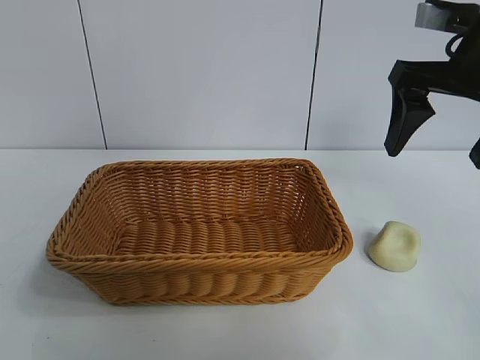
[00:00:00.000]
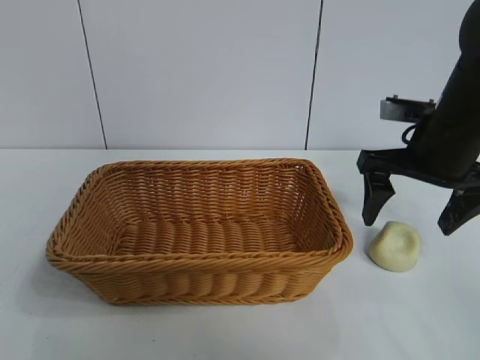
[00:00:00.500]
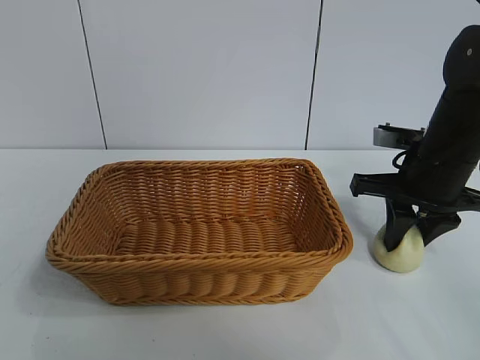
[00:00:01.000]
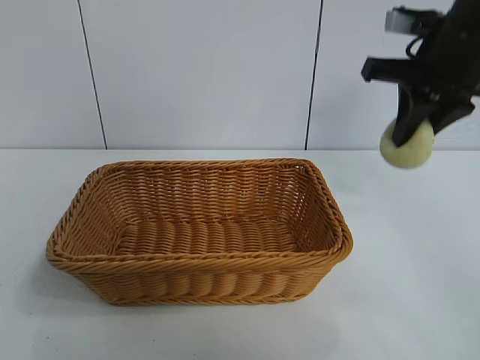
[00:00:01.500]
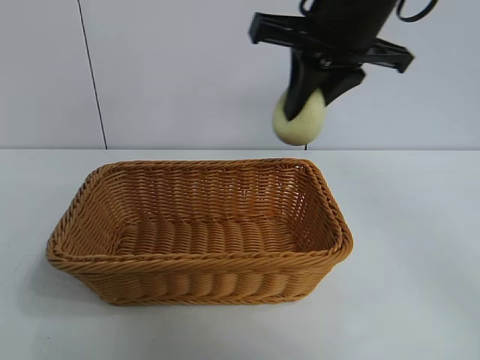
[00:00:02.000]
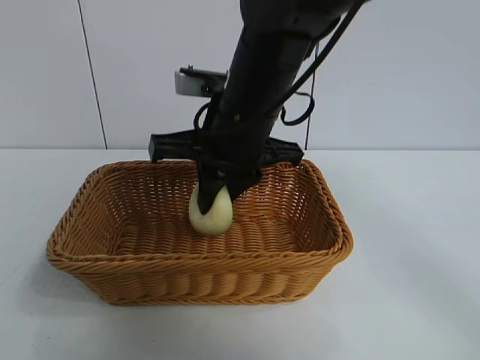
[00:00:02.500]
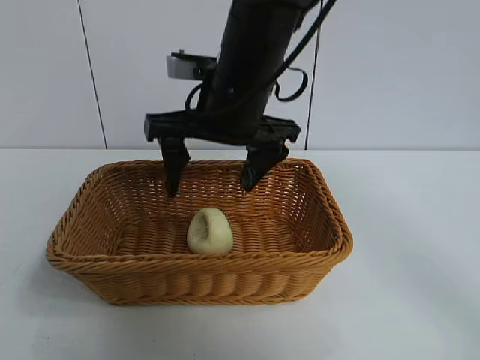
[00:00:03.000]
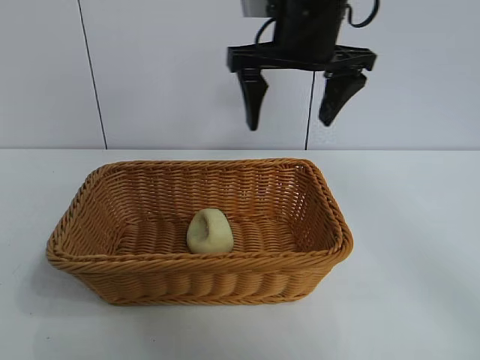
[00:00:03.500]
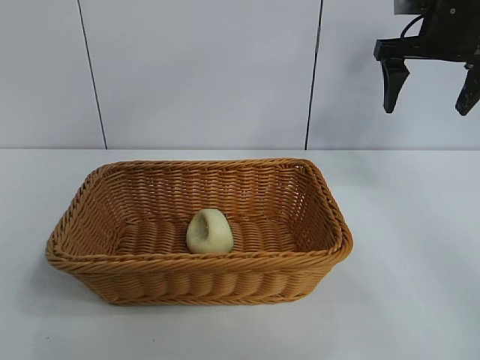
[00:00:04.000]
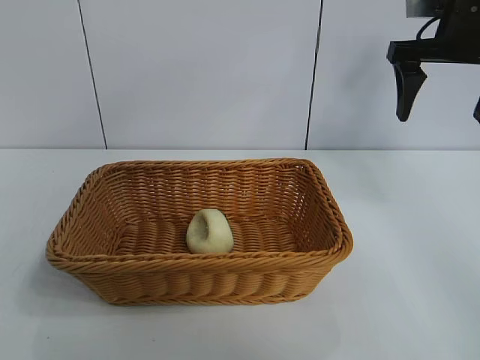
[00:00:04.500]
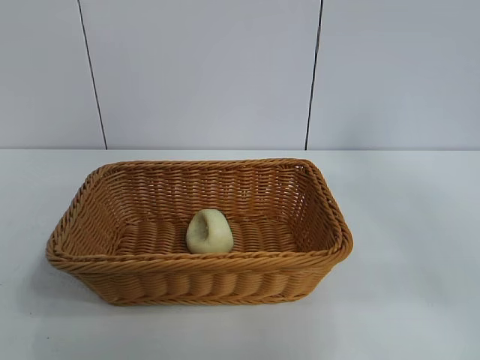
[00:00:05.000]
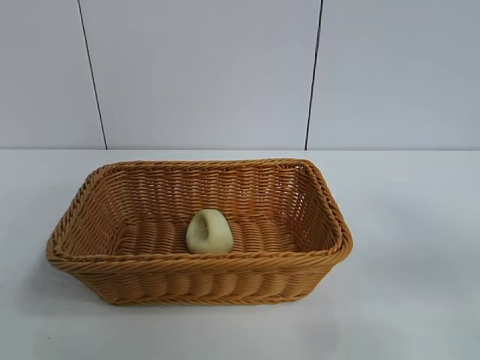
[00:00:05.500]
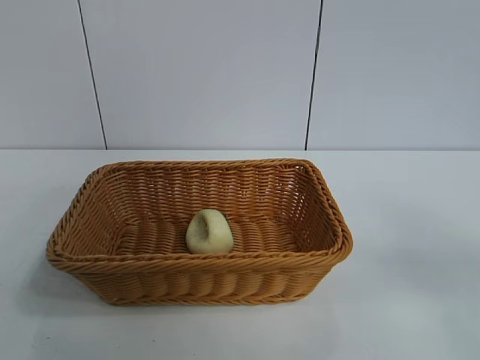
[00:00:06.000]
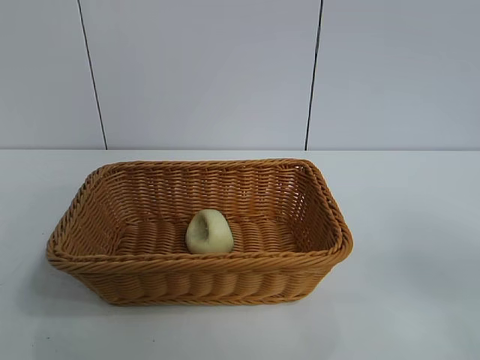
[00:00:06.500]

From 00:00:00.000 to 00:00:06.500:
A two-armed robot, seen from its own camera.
Task of the whole recording: pick up the egg yolk pastry and put it into the basket.
Step, from 00:00:01.500 to 00:00:02.500: Place the egg yolk pastry in the basket with right gripper.
